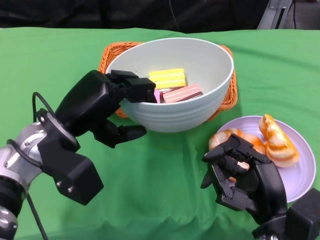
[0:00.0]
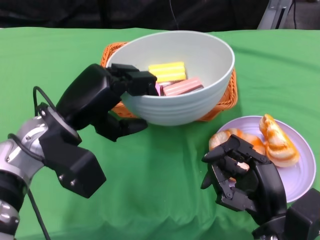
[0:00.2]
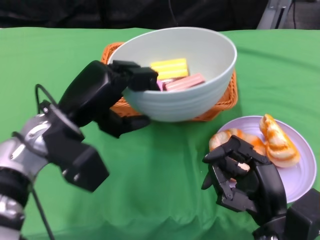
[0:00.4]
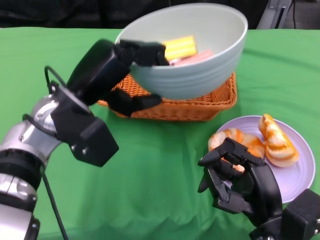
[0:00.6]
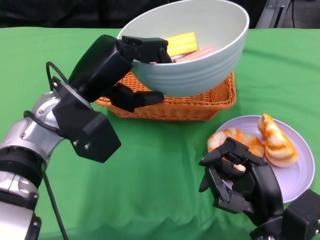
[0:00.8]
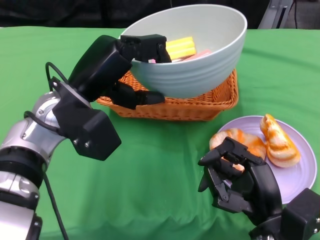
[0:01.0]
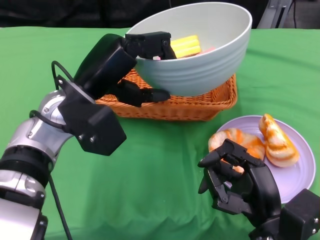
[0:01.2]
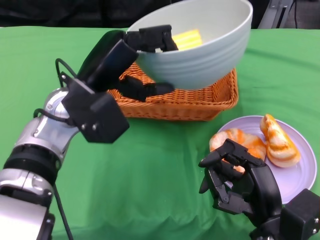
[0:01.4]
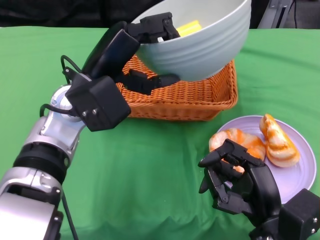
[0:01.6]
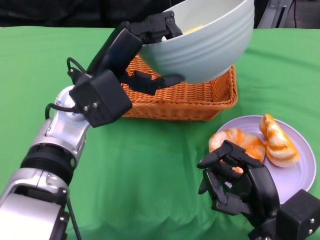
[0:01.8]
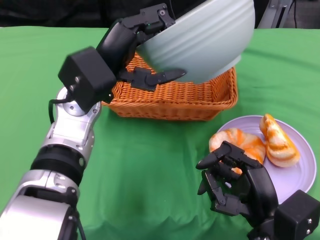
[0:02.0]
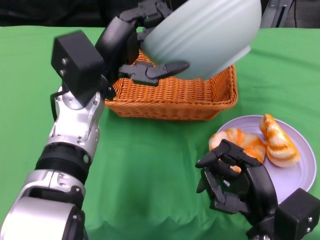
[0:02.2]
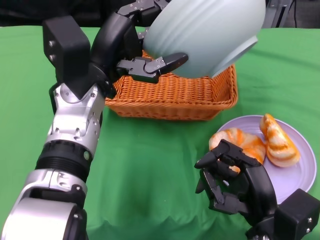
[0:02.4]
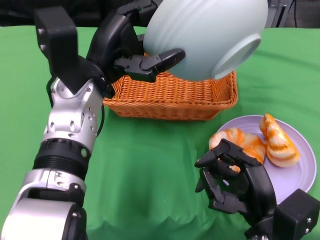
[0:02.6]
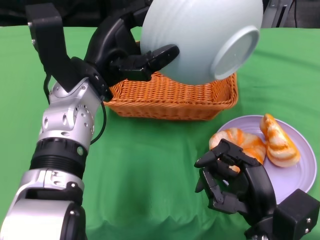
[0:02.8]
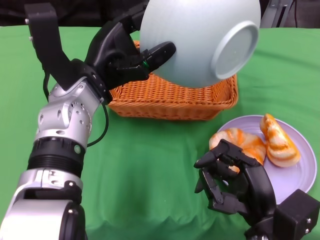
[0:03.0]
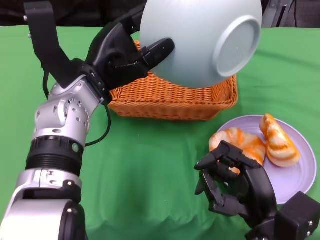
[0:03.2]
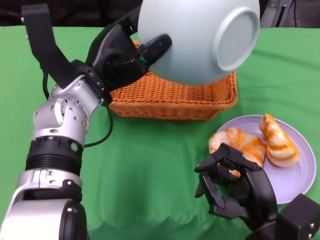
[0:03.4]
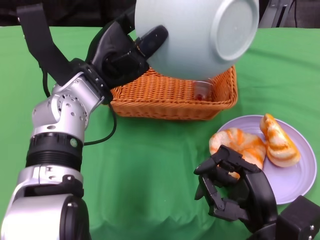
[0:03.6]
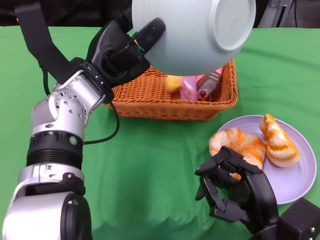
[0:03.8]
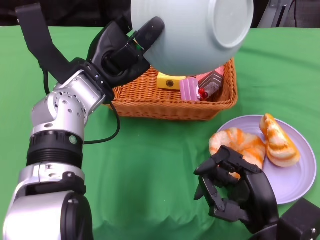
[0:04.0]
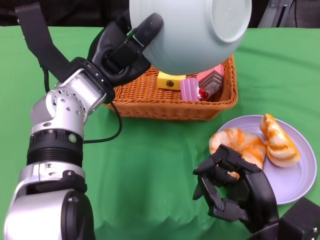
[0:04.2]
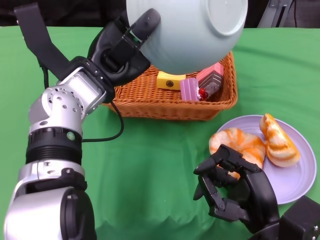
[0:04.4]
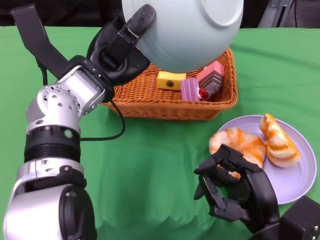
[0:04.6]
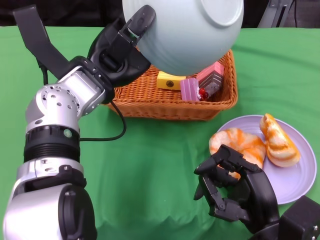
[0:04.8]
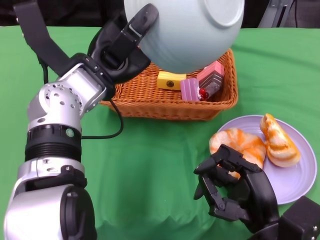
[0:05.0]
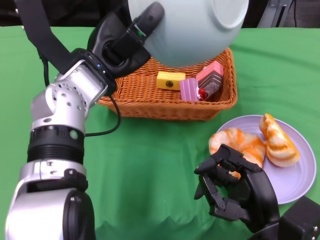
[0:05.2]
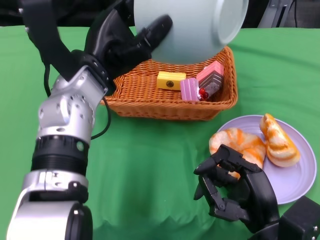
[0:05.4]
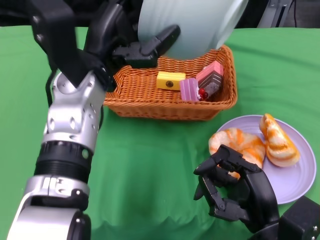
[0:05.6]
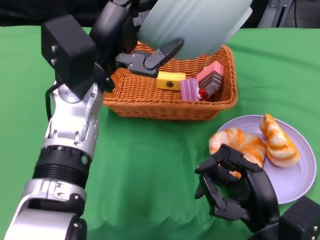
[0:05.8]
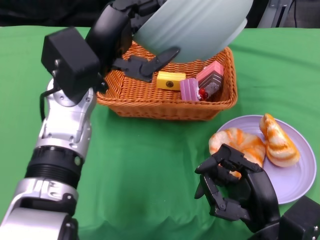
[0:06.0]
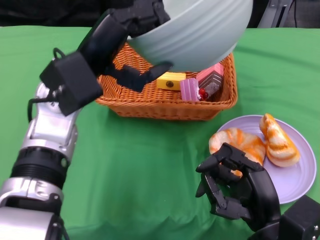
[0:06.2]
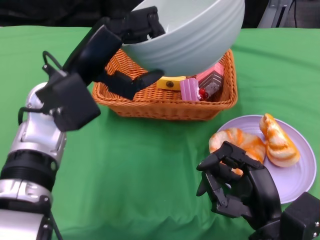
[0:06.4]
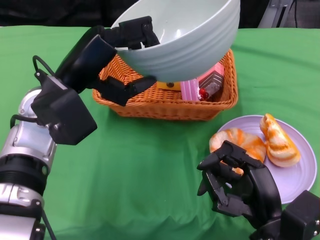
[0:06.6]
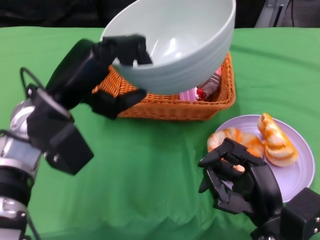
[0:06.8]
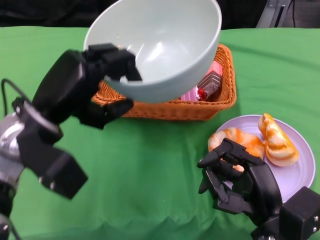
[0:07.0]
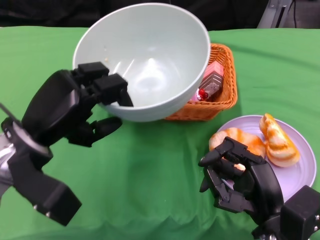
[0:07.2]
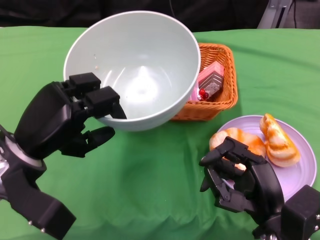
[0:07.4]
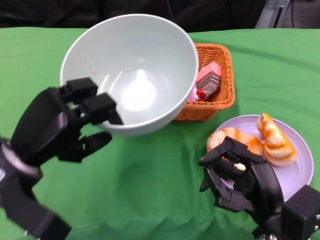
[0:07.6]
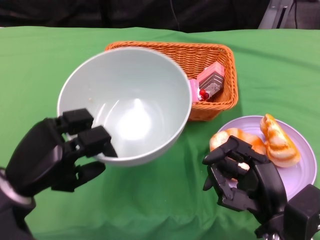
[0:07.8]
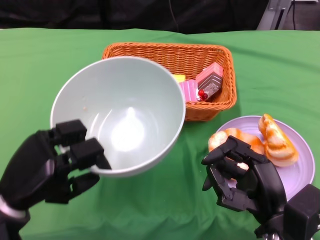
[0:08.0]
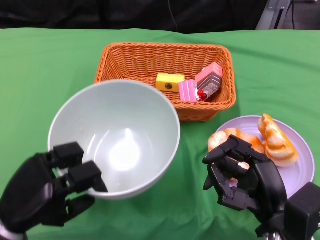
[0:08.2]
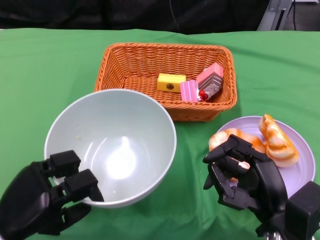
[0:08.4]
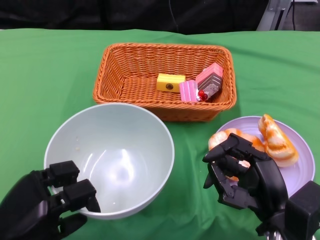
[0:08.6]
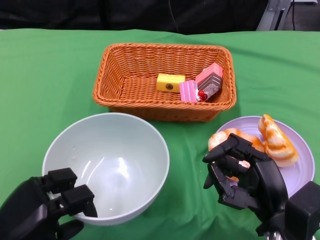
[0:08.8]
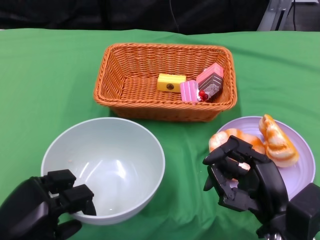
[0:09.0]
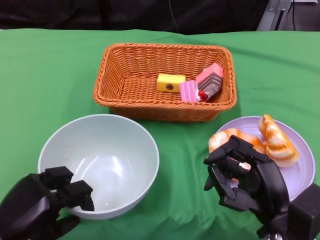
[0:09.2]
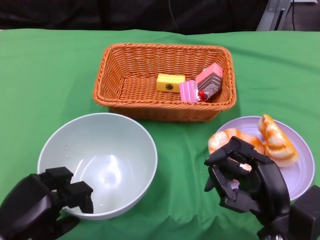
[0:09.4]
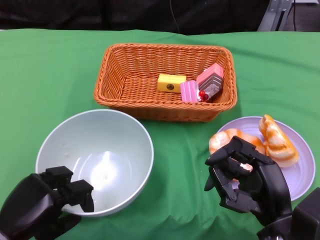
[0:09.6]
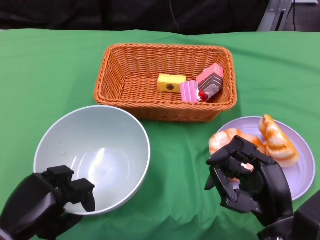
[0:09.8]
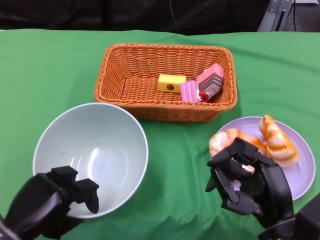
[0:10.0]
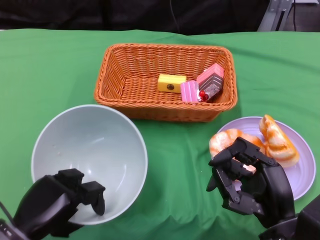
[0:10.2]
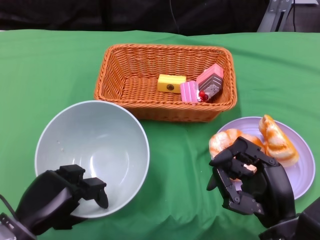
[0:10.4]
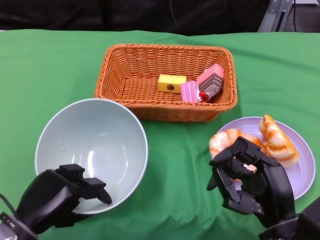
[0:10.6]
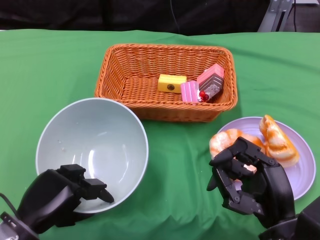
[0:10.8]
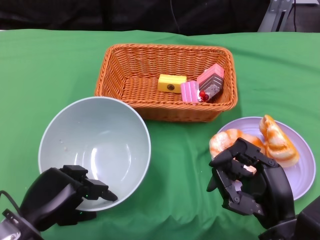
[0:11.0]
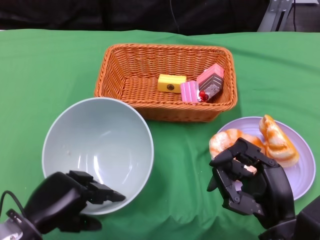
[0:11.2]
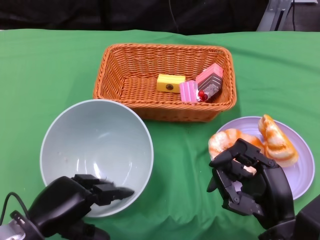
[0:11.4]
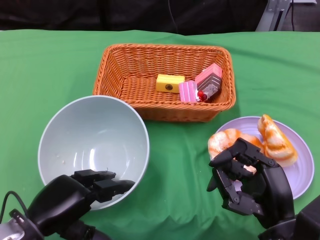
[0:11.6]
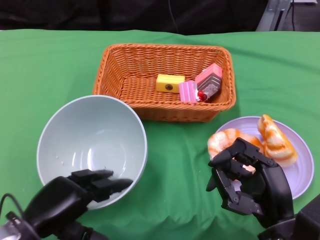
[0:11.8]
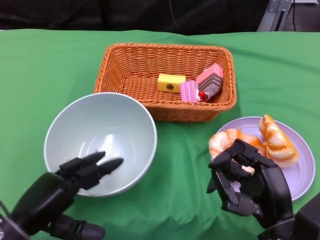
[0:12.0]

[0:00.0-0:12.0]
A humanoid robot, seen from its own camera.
Step, 0:00.0 to 0:04.0: Pour the cake into the basket with the left gripper.
Step, 0:04.2 to 0:11.4: Place the bowl on the table with the left gripper.
0:00.0 to 0:01.6: The left hand ends up about 5 cm from where it was.
0:06.0 to 0:07.6: The left hand travels to the left, downward and backward by approximately 15 cm.
0:07.6 to 0:09.0: The left hand is displaced downward and backward by approximately 10 cm.
0:09.0 to 0:12.0: The hands make only small movements.

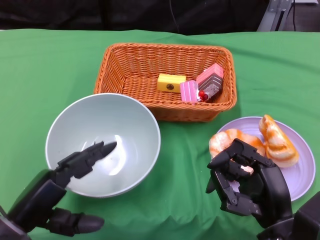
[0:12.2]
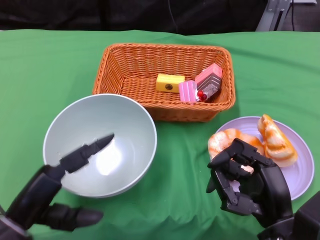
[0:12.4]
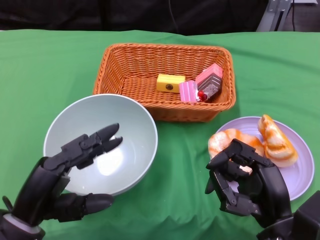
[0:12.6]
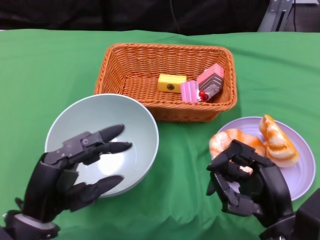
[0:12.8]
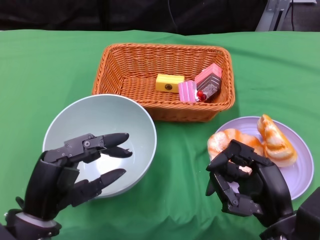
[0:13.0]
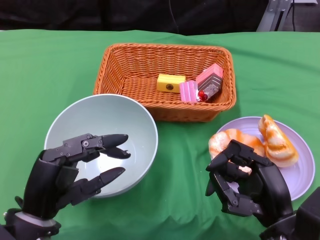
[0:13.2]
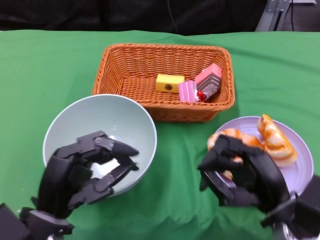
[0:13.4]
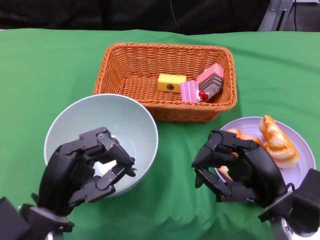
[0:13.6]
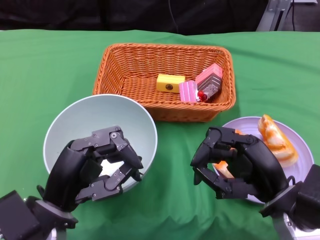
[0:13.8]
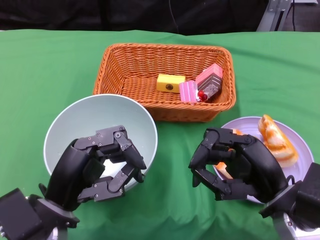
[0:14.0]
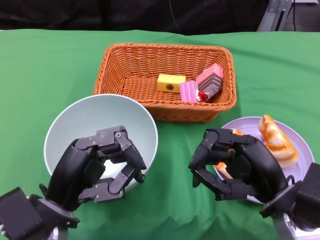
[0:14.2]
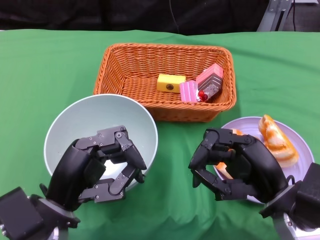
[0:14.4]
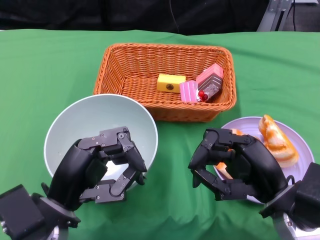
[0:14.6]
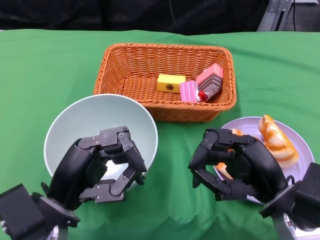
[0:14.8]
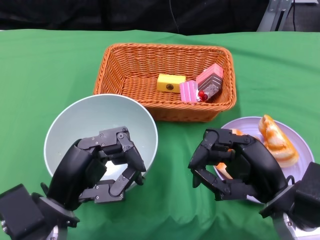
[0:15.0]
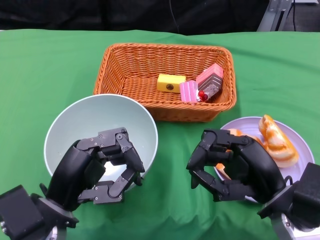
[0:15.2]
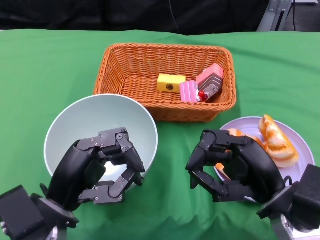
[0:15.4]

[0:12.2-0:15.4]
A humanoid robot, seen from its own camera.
0:12.2 to 0:13.8: The left hand shifts roughly 5 cm to the right.
0:13.8 to 0:15.4: Neither hand changes place.

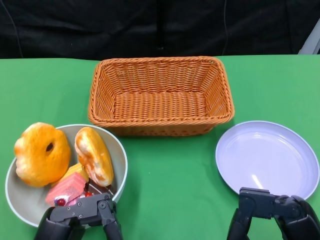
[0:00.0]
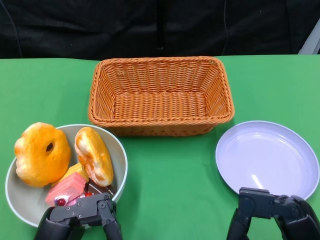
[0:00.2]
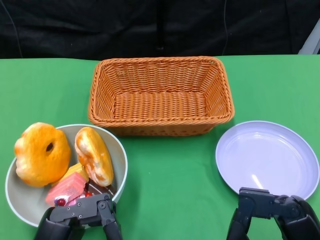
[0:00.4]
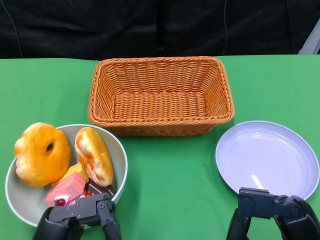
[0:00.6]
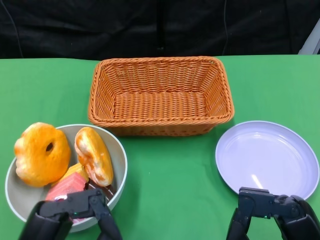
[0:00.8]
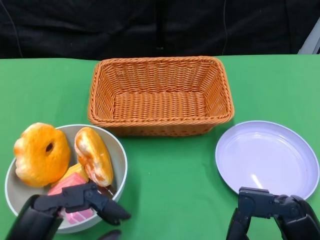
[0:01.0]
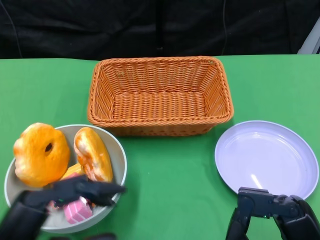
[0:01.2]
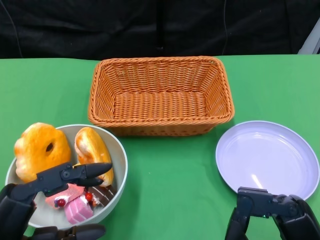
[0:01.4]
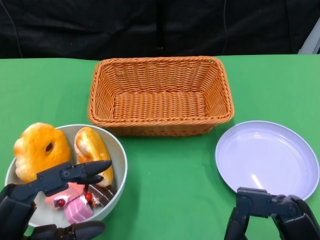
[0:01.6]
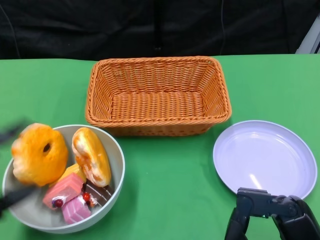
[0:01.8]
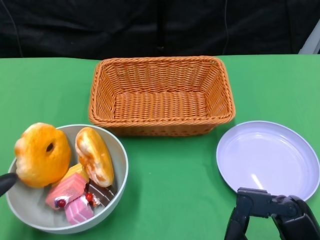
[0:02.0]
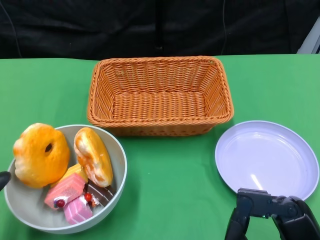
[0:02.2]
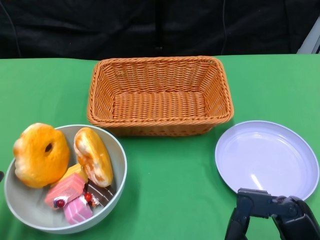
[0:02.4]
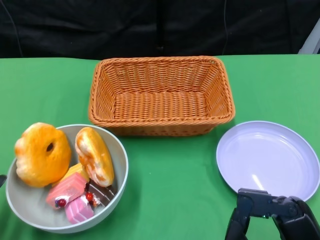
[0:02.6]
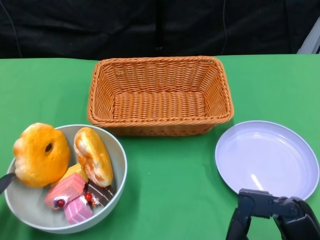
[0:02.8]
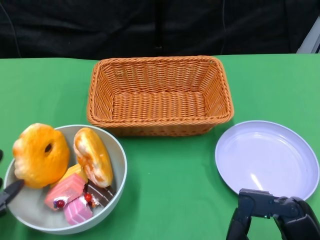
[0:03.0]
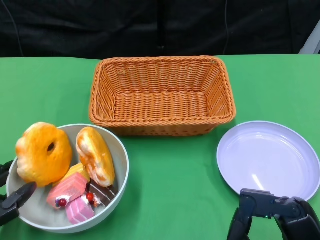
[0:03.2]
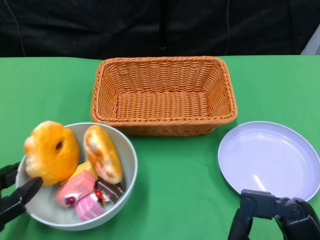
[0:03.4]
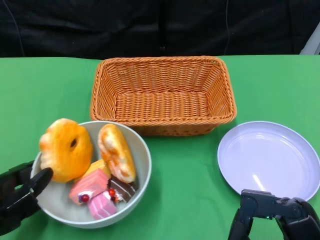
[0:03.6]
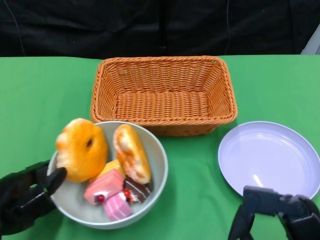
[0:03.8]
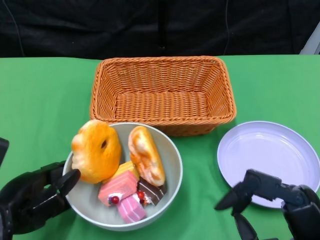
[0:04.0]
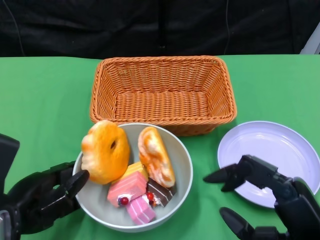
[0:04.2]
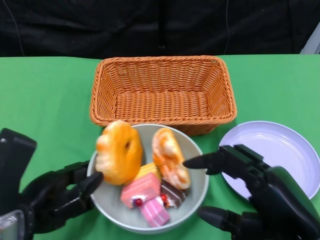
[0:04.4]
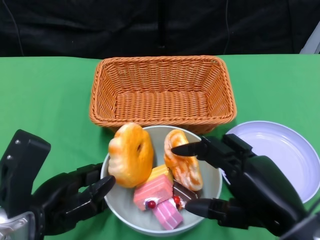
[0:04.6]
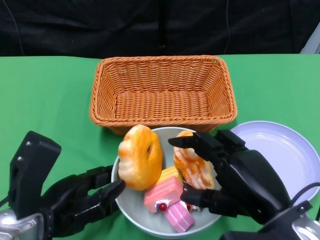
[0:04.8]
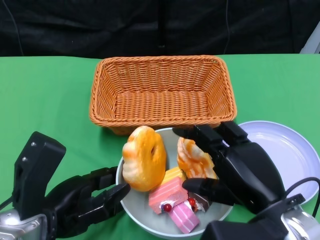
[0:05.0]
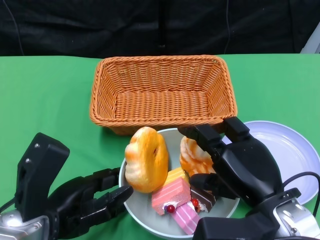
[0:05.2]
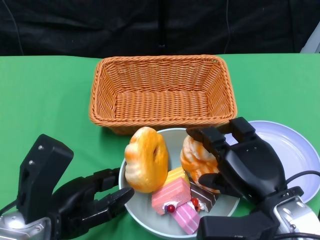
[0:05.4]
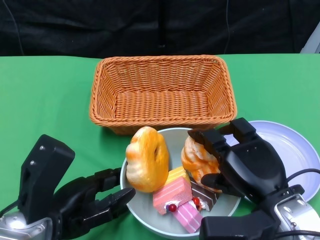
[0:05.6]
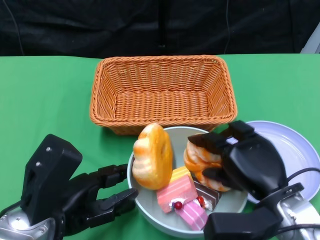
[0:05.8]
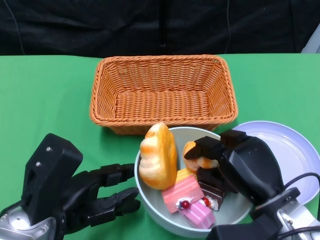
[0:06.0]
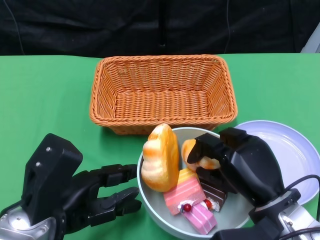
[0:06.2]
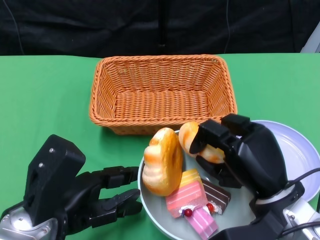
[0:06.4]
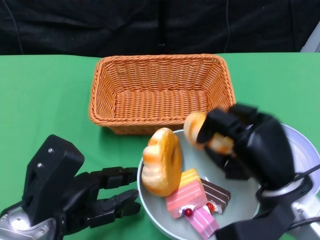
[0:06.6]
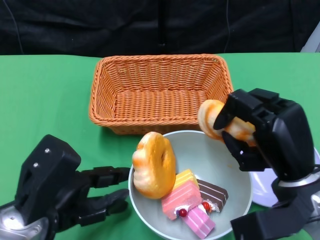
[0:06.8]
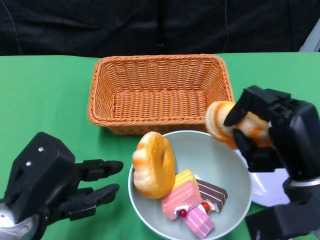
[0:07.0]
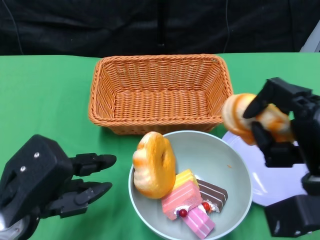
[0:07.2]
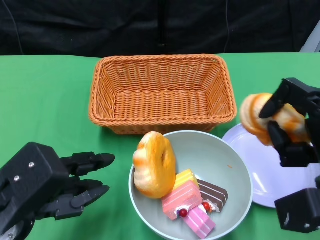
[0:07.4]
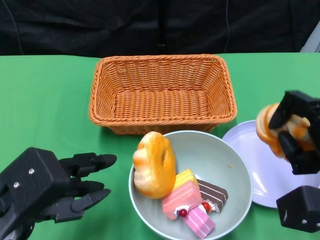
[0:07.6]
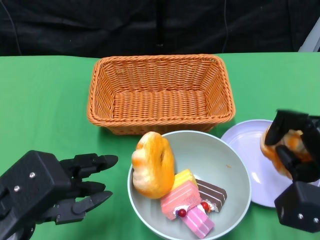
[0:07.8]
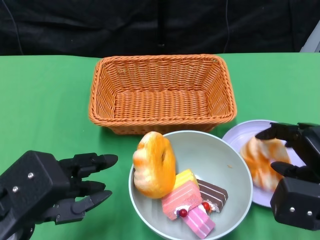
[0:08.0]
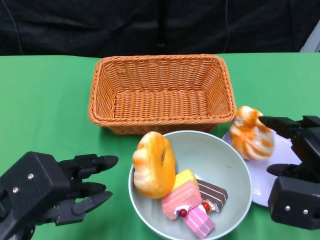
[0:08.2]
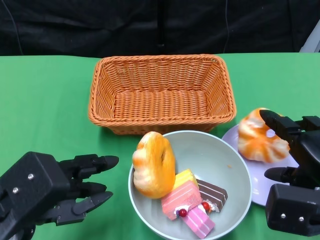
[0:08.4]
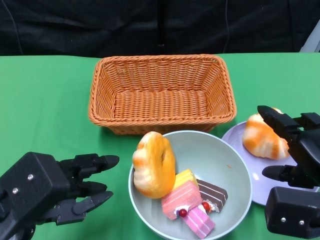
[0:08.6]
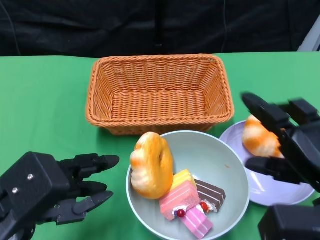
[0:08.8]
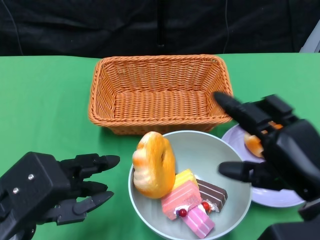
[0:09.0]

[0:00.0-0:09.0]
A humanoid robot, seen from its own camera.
Step, 0:00.0 to 0:04.8: Push the bowl to the center of the table using the left gripper.
0:01.6 to 0:03.0: The left hand goes about 5 cm to the left.
0:03.0 to 0:04.4: The left hand moves to the right, roughly 5 cm.
0:04.4 to 0:06.0: The right hand moves forward and downward, some 10 cm.
0:06.0 to 0:07.6: The right hand heads to the right, covering some 10 cm.
0:07.6 to 0:09.0: The right hand changes place by roughly 5 cm.
